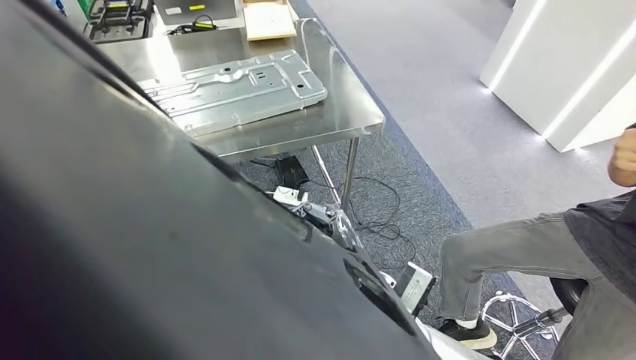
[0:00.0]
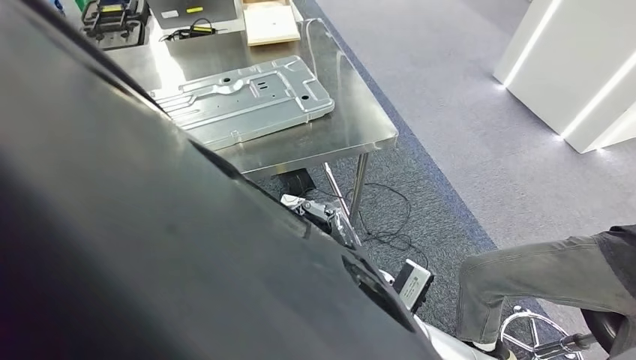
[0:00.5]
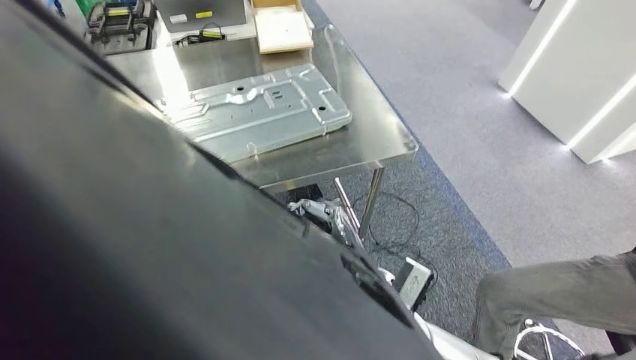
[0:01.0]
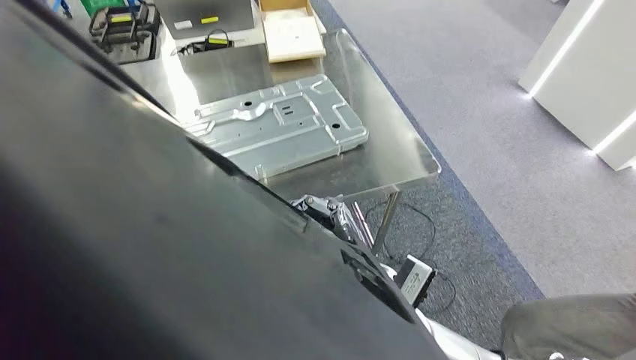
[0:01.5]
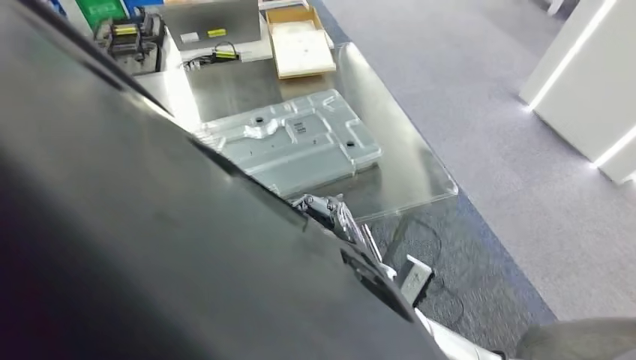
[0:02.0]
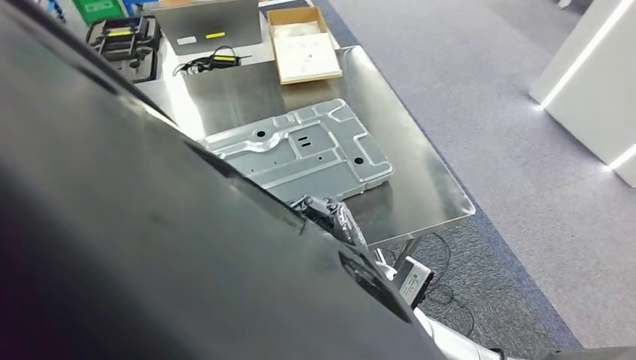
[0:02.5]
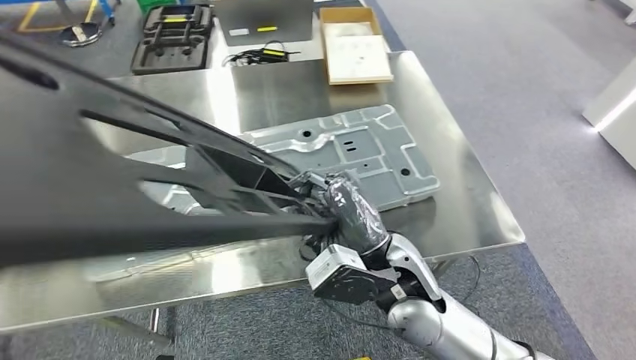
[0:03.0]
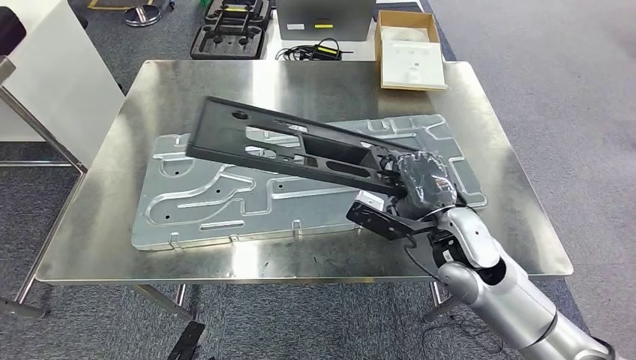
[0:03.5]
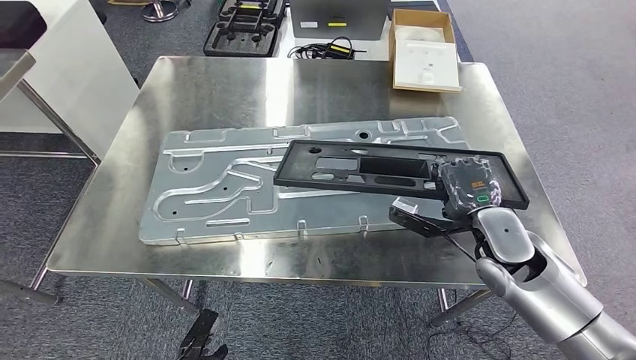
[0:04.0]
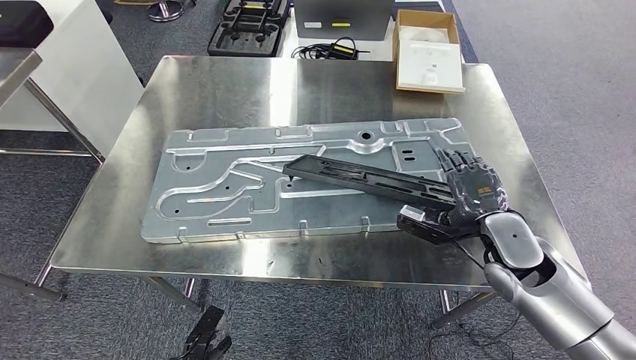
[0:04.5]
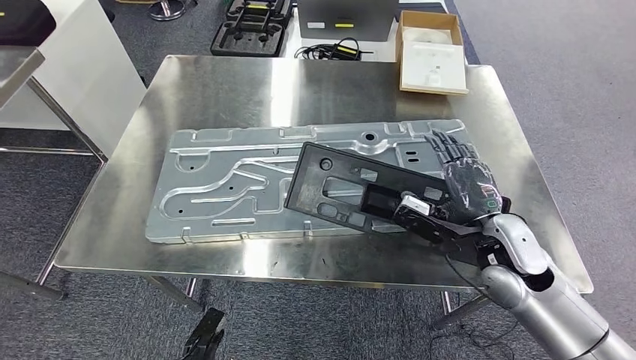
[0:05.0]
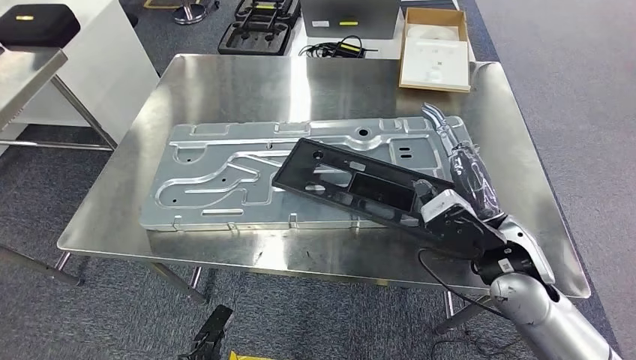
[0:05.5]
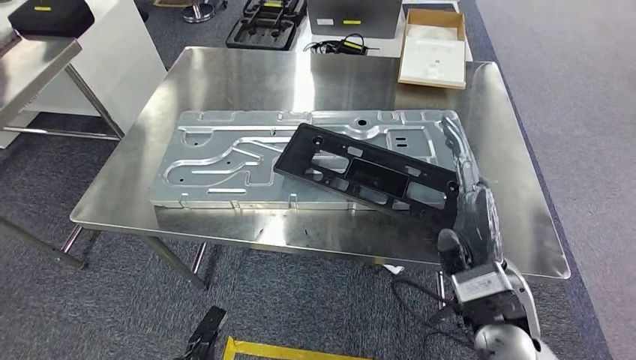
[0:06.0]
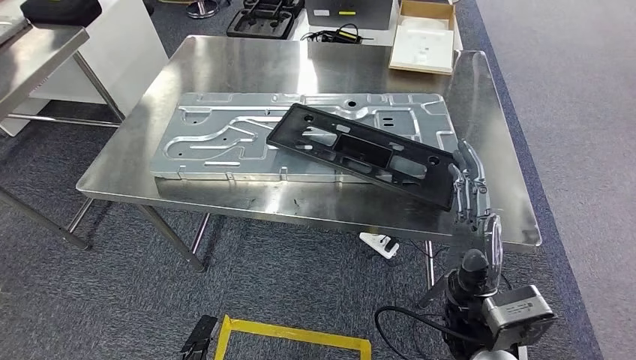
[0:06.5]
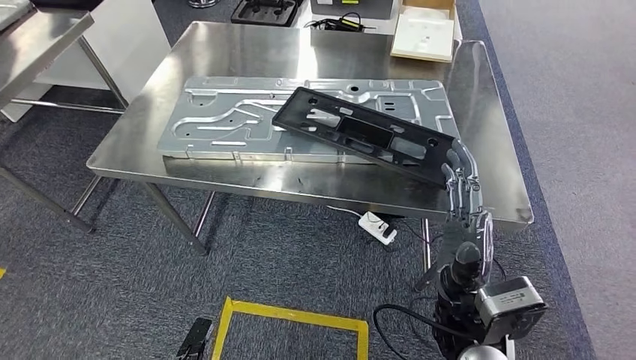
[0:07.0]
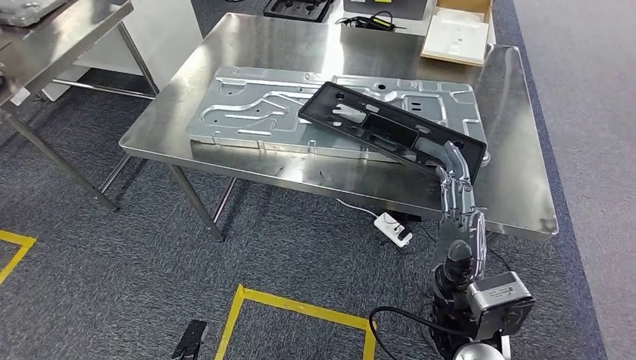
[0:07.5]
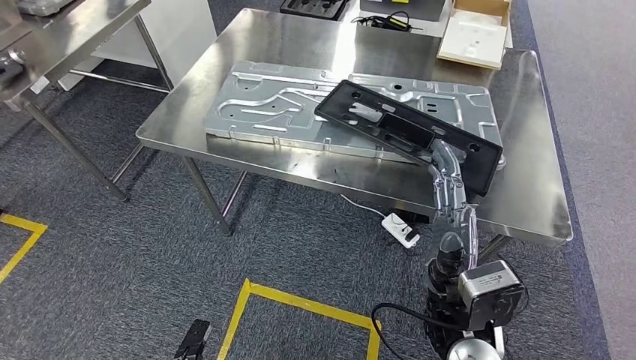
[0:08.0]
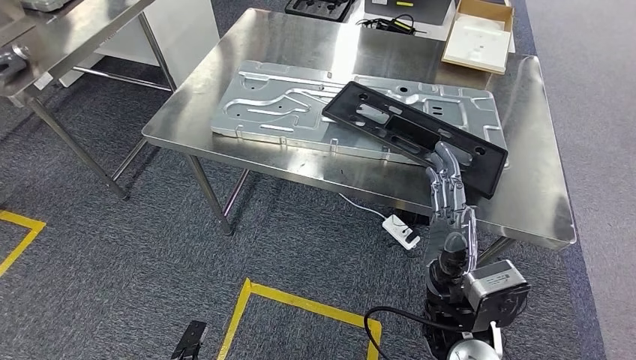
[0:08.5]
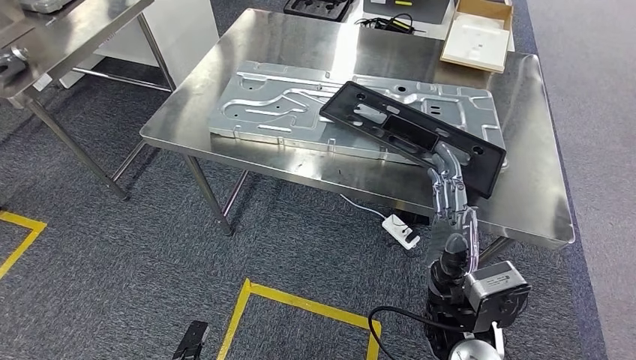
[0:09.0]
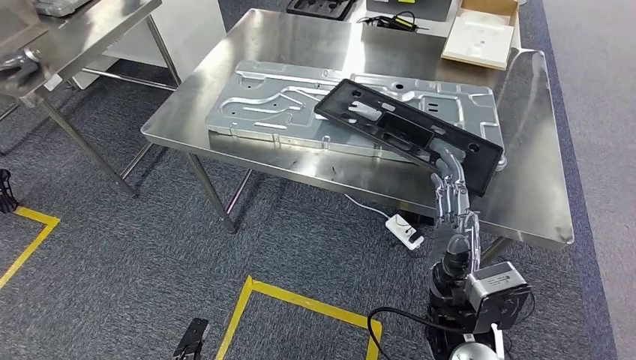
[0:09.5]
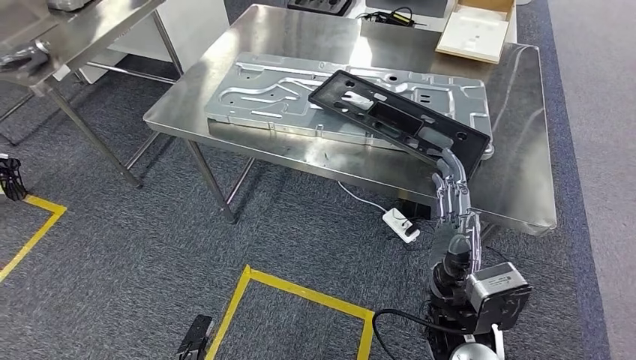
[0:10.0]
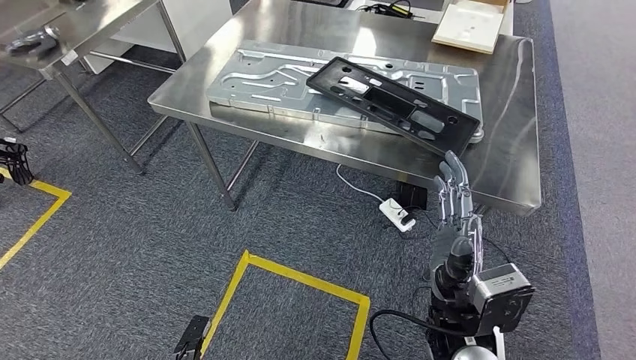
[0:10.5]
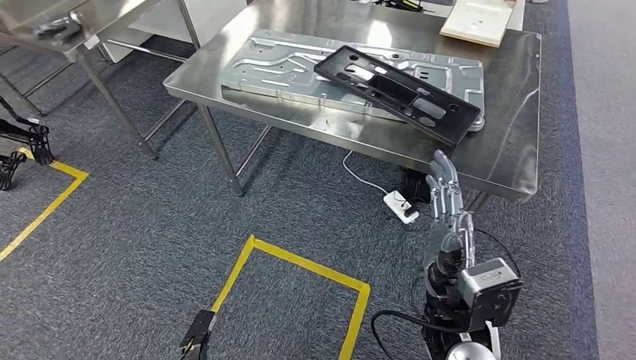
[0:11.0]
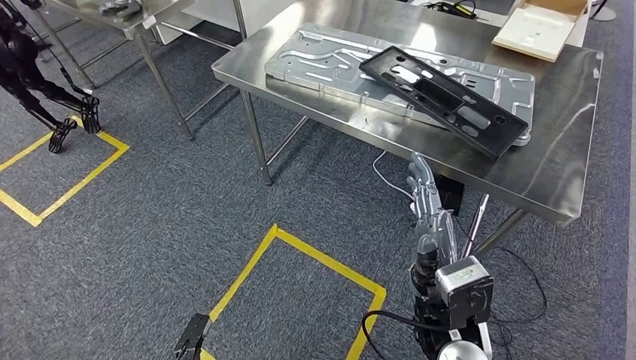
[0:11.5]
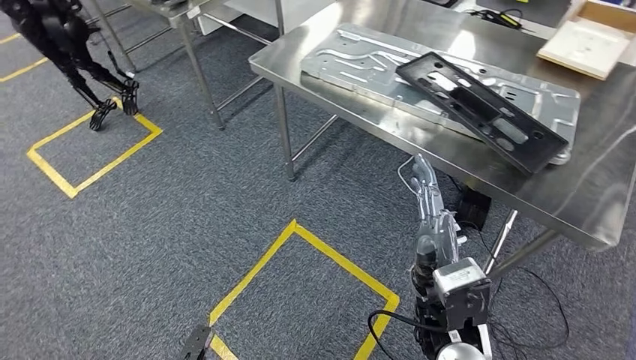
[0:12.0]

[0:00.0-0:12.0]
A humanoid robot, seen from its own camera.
Step, 0:00.0 to 0:09.0: Insert the large material into the corresponding slot on the workbench.

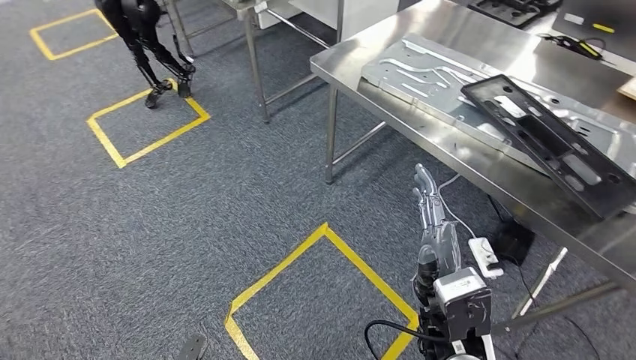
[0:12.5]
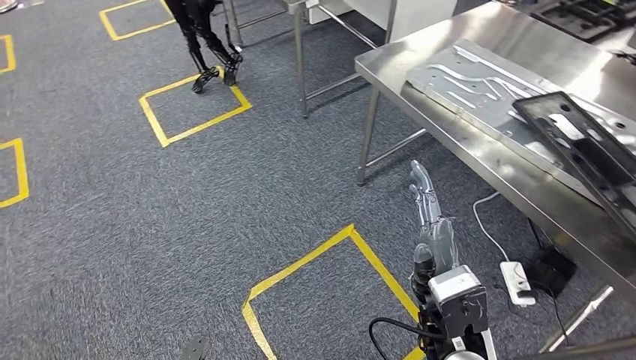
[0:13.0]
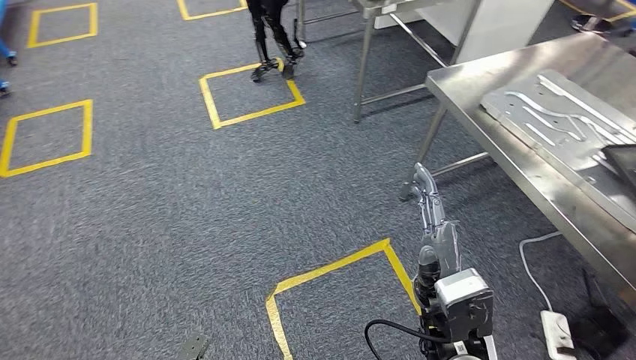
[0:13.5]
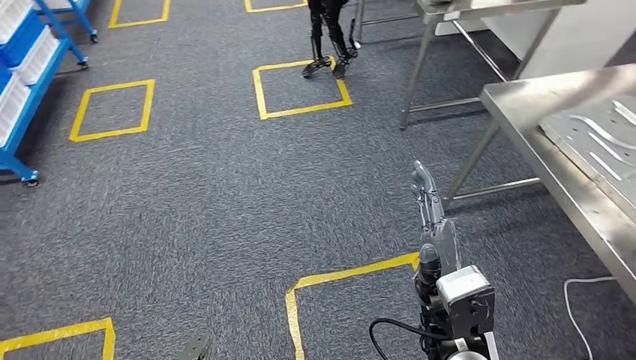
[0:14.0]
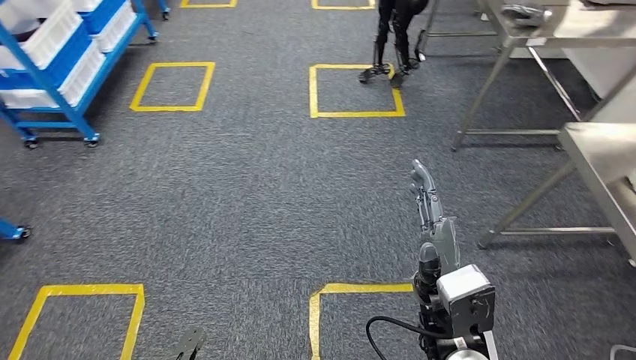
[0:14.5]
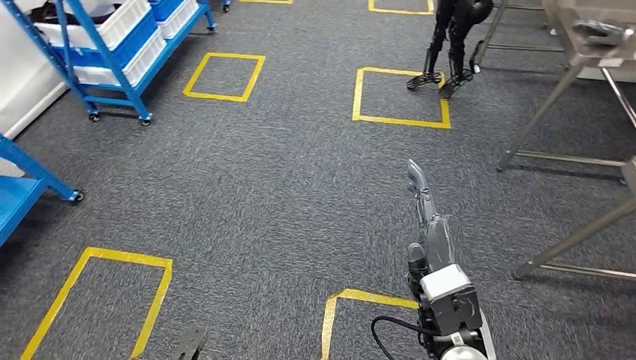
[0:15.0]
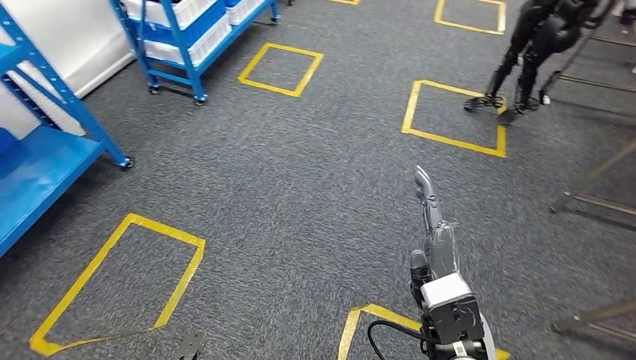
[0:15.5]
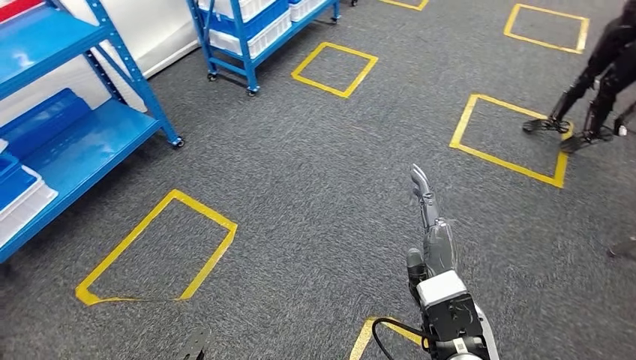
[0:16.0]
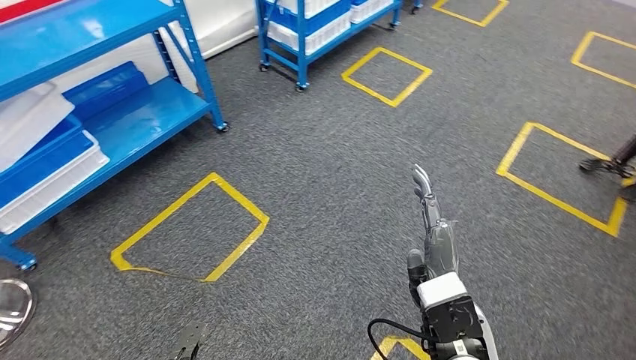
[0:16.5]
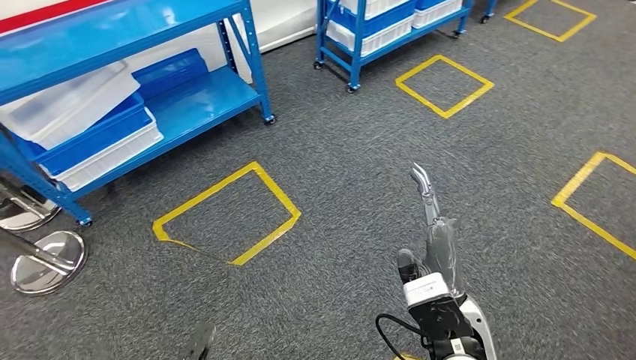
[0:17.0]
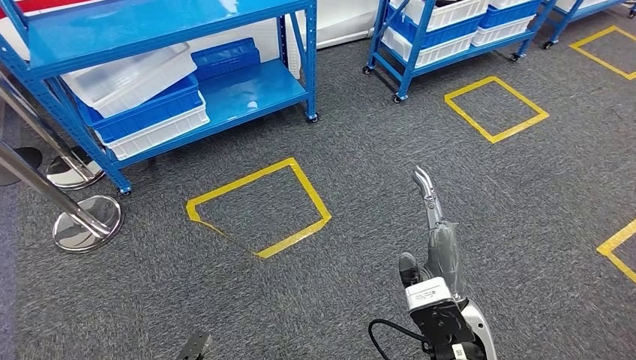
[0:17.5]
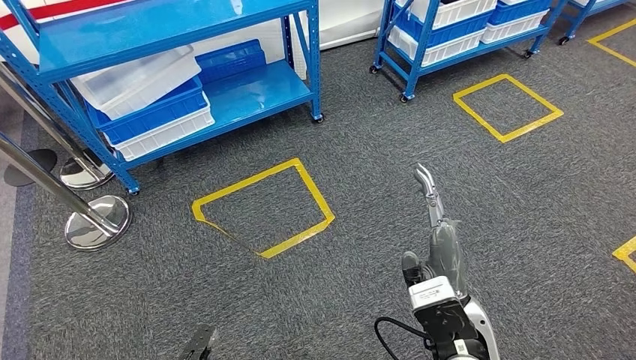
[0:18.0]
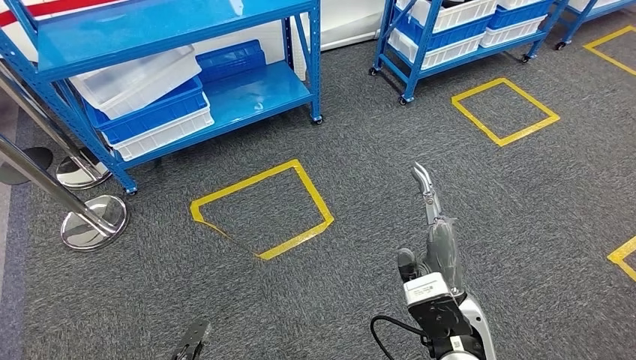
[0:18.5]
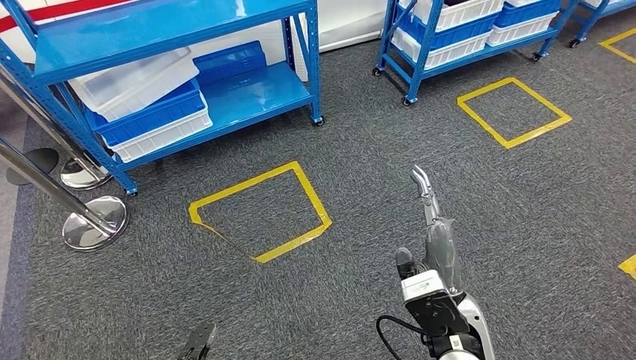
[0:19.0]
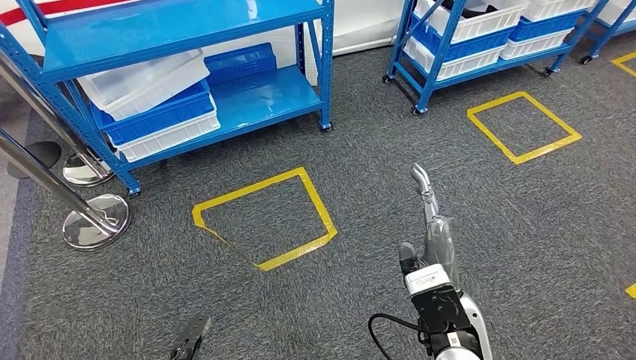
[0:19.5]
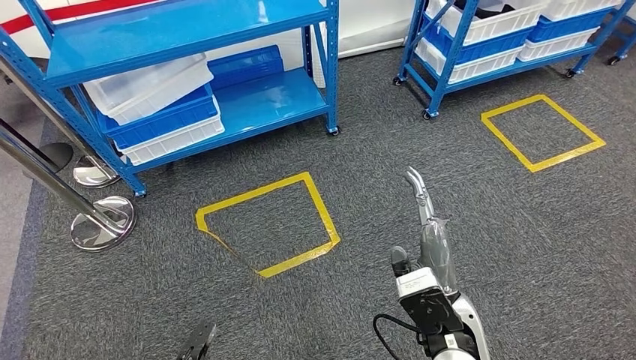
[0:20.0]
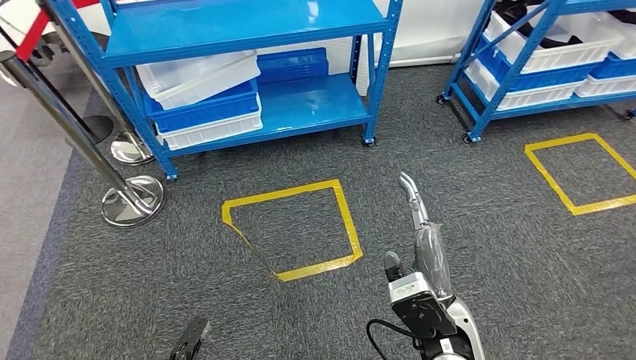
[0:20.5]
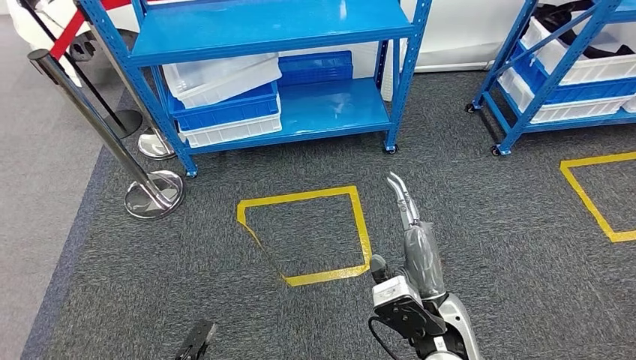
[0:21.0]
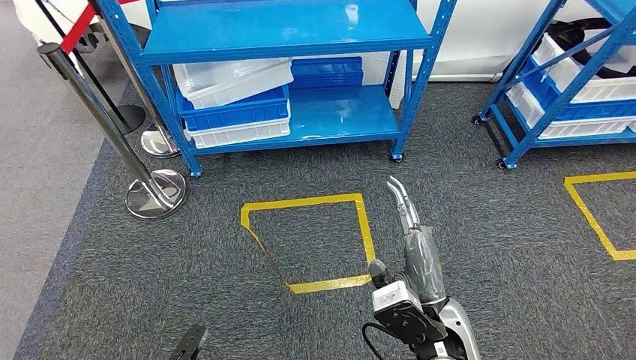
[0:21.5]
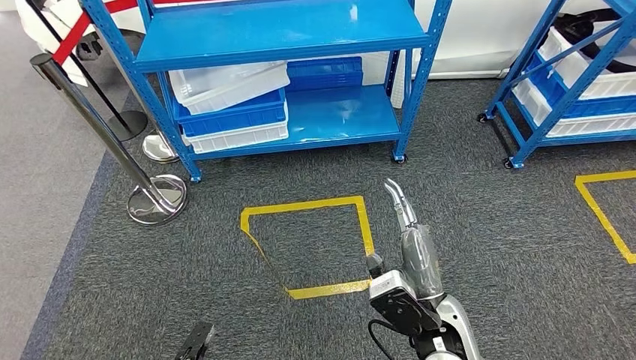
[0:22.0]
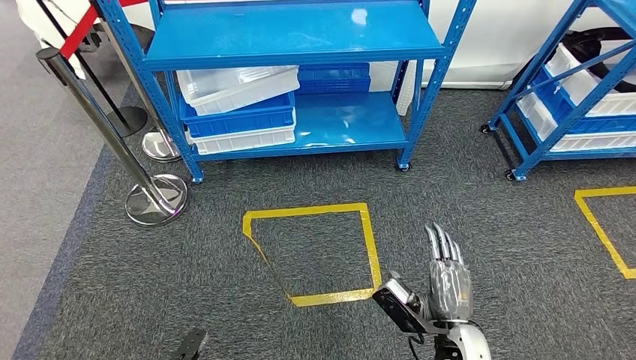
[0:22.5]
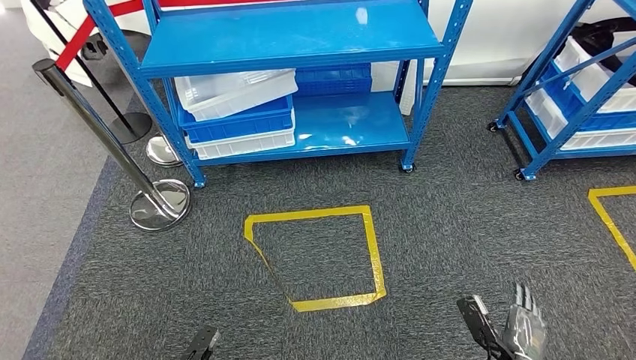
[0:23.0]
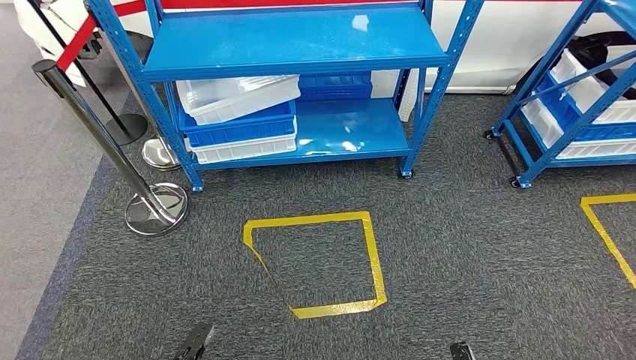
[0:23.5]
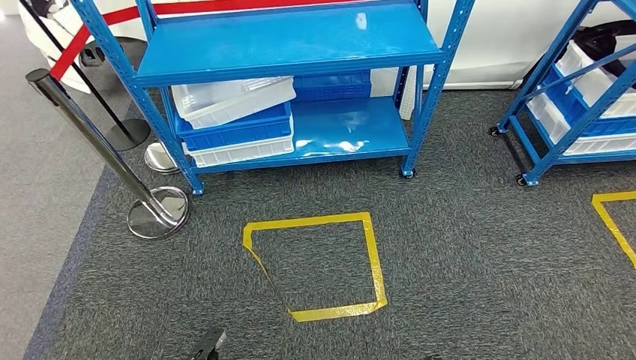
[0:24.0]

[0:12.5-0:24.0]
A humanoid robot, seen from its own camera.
Step, 0:12.5 to 0:24.0: Return to the initial position at the shelf.
